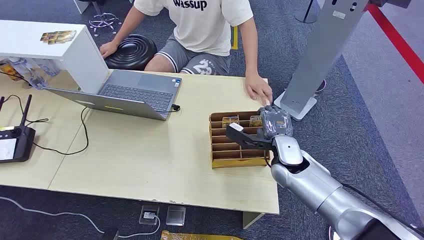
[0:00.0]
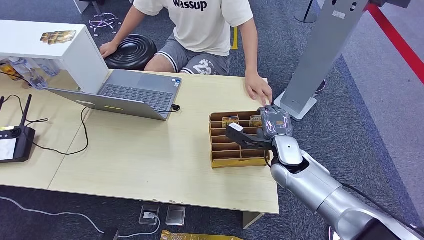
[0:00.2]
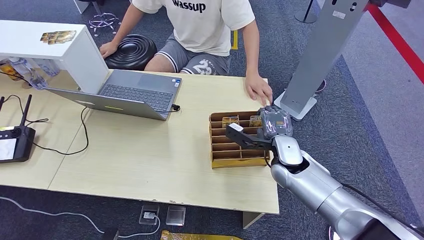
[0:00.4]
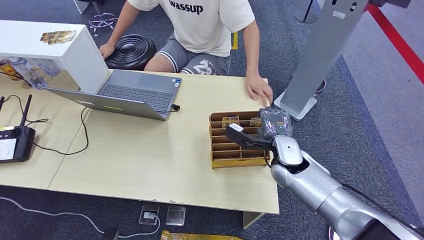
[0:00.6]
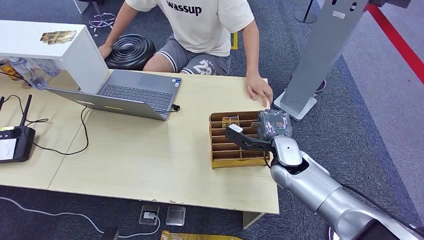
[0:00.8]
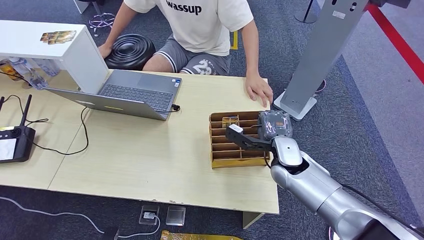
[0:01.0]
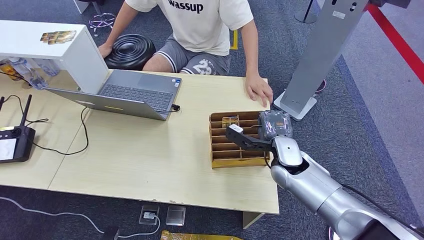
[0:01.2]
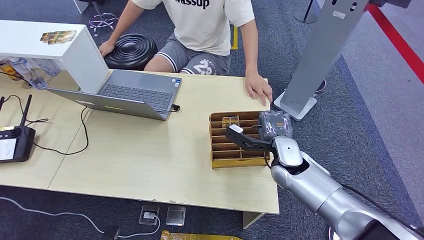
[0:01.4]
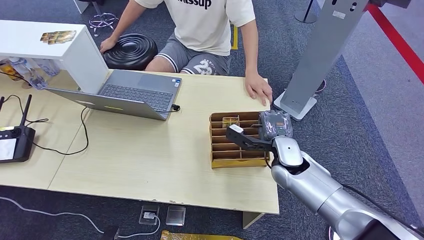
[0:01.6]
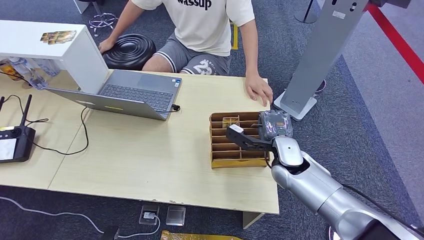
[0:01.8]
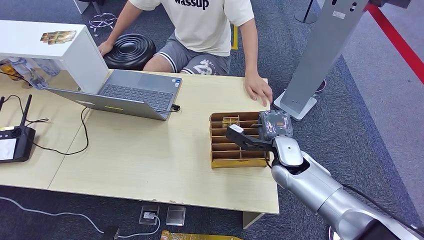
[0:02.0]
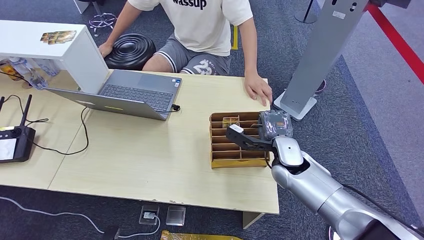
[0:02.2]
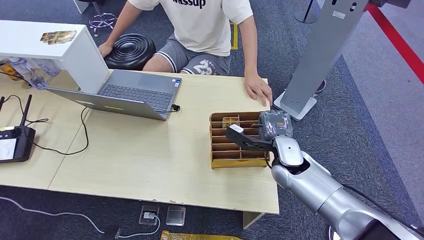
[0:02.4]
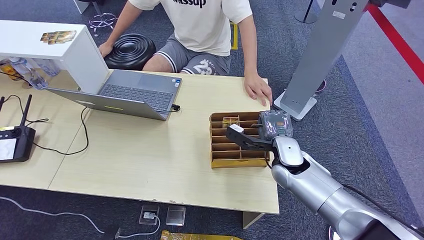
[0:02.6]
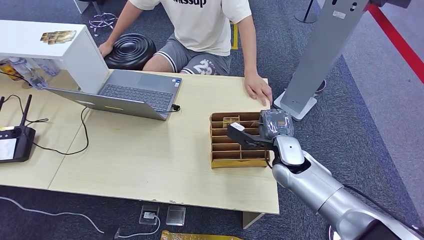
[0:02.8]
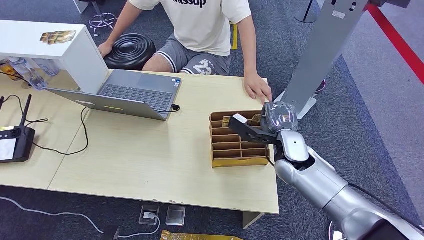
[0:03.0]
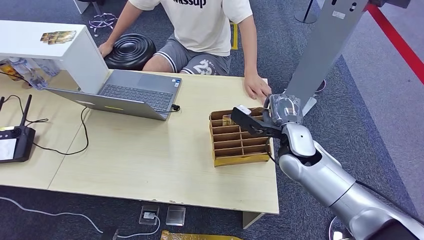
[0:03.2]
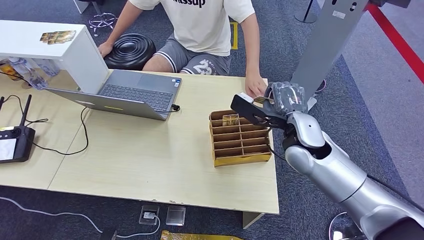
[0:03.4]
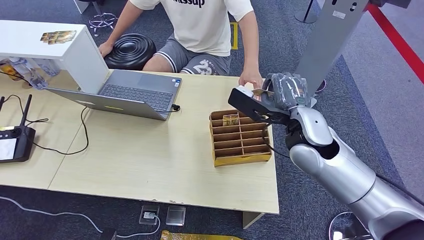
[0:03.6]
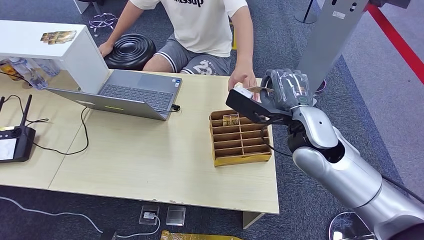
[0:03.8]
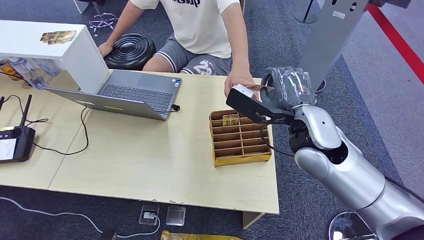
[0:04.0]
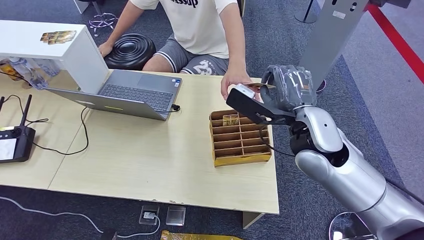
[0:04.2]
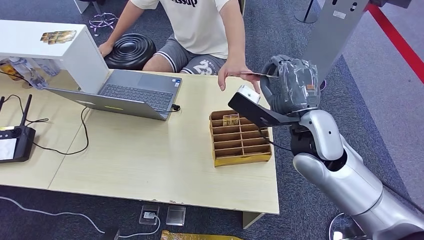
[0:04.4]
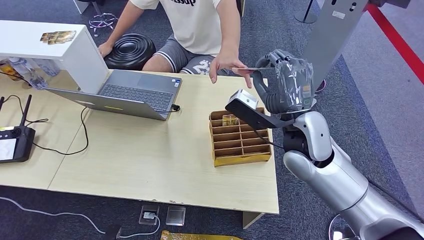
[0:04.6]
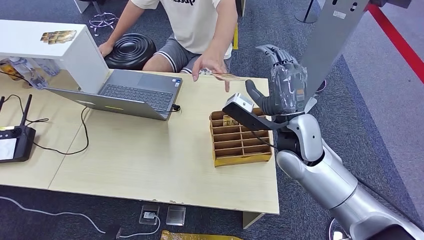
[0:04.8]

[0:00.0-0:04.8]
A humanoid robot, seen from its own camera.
Step, 0:00.0 to 0:02.8: Pick up the key card from the card box.
Step, 0:03.2 to 0:04.8: Hand the key card to the target.
0:01.6 to 0:03.2: The right hand moves upward, about 5 cm.
0:03.2 to 0:04.8: The right hand moves upward, roughly 5 cm.
